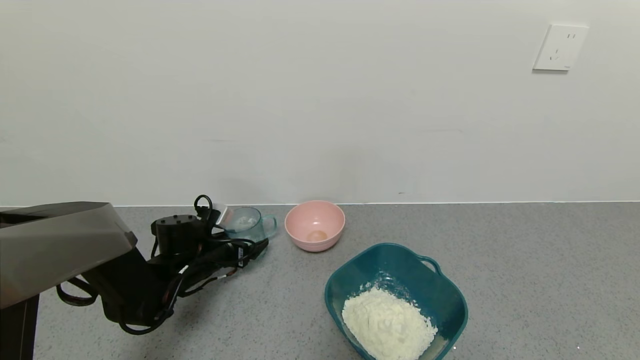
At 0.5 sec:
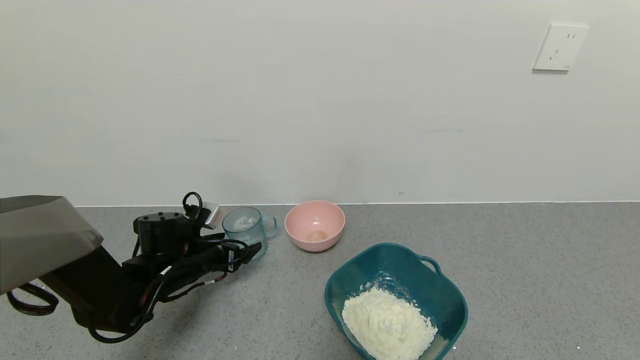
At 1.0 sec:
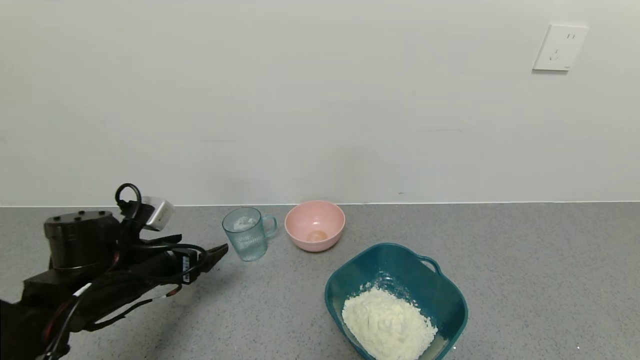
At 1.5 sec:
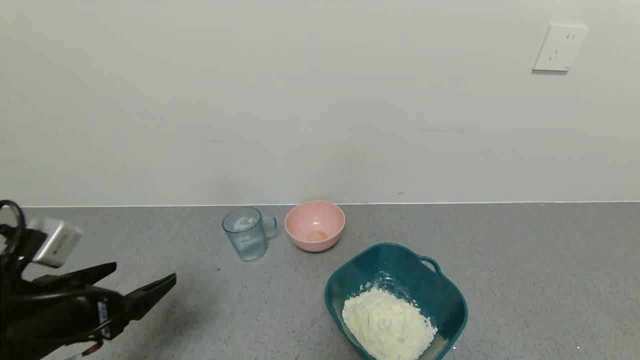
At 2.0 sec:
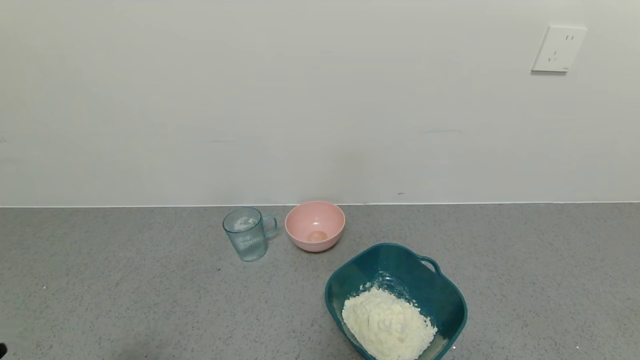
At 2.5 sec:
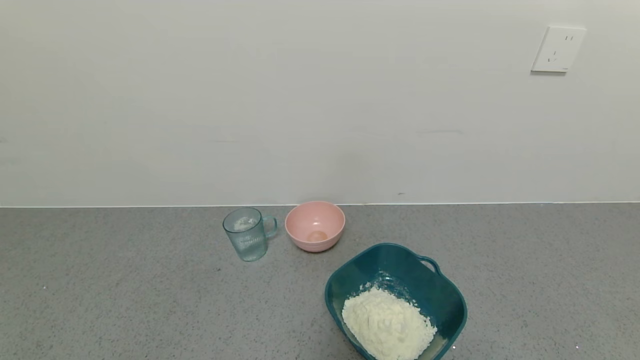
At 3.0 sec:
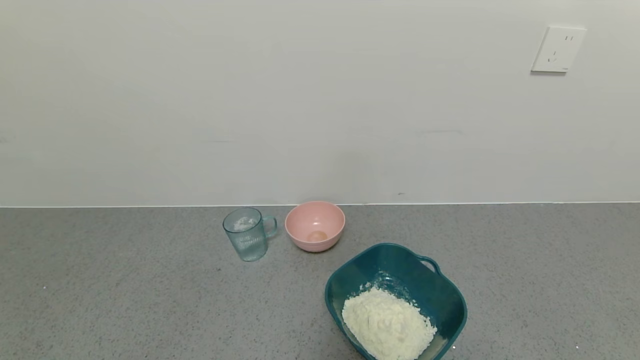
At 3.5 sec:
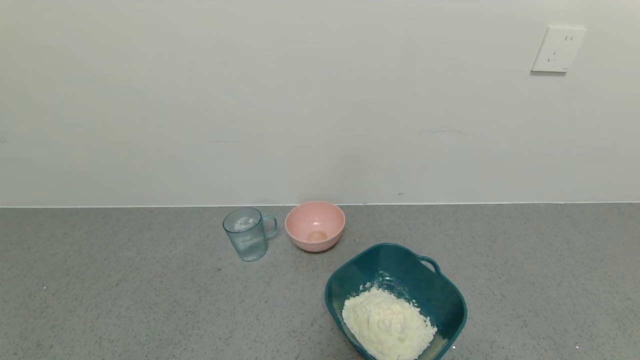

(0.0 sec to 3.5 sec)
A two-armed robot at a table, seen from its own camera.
Task of the whole recording: use a gripper to pick up the cup and pour the powder into a bowl or tray.
0.0 sec - 2.0 sec: The left gripper moves backward, some 35 cm.

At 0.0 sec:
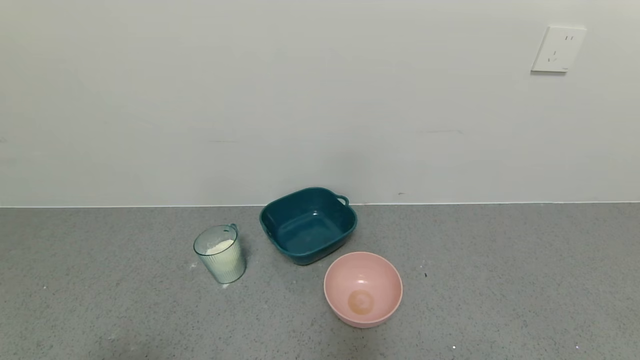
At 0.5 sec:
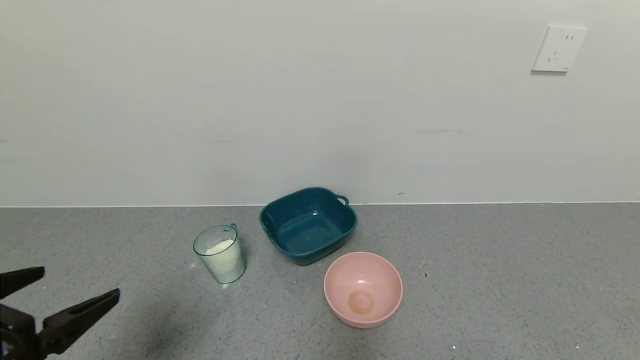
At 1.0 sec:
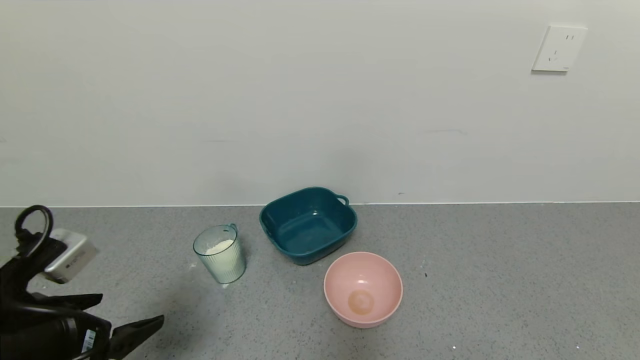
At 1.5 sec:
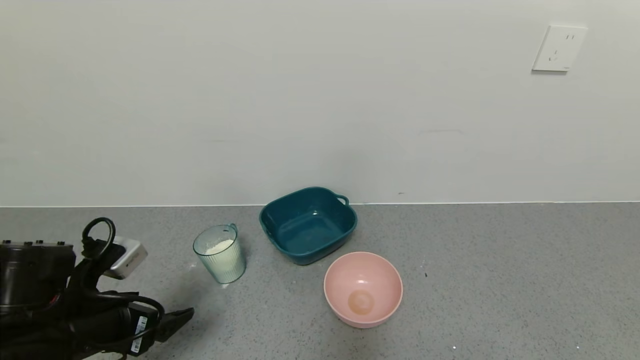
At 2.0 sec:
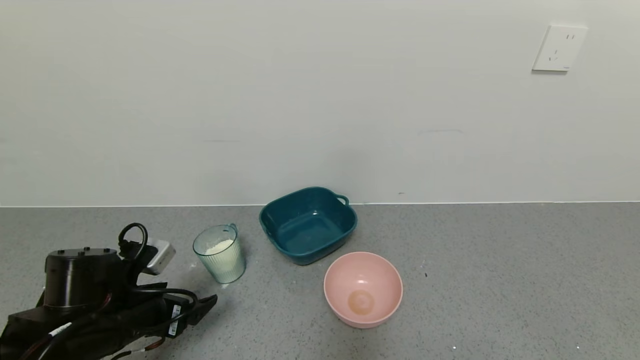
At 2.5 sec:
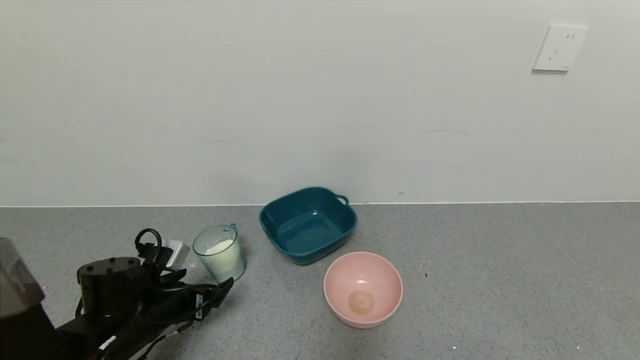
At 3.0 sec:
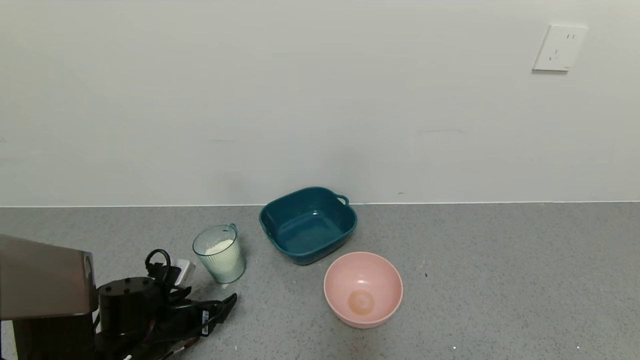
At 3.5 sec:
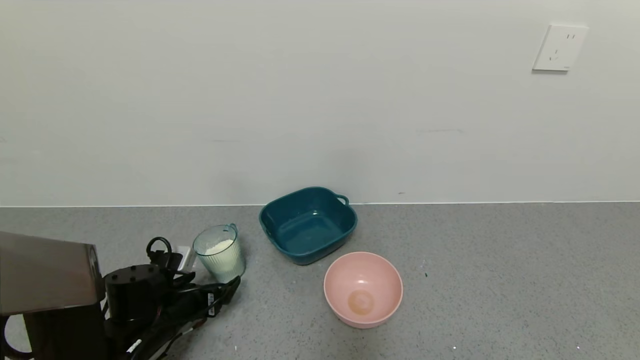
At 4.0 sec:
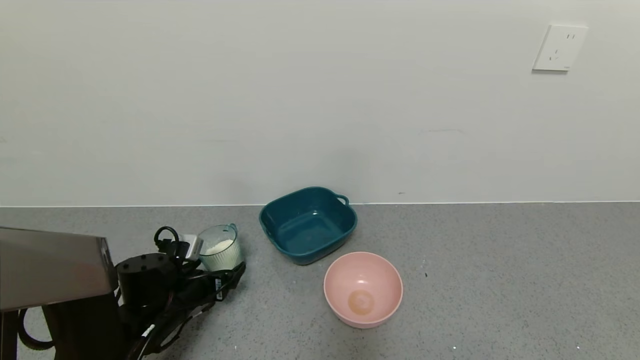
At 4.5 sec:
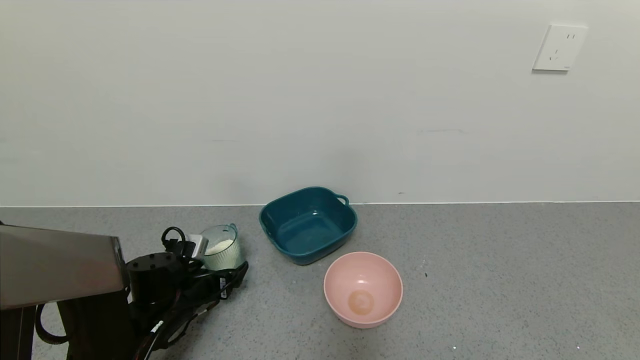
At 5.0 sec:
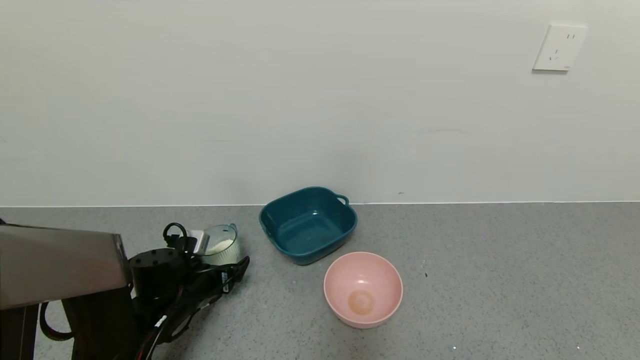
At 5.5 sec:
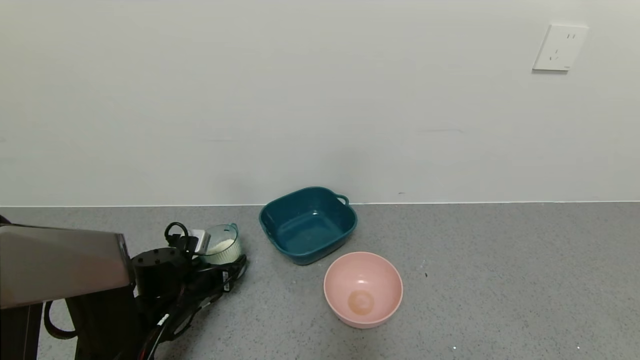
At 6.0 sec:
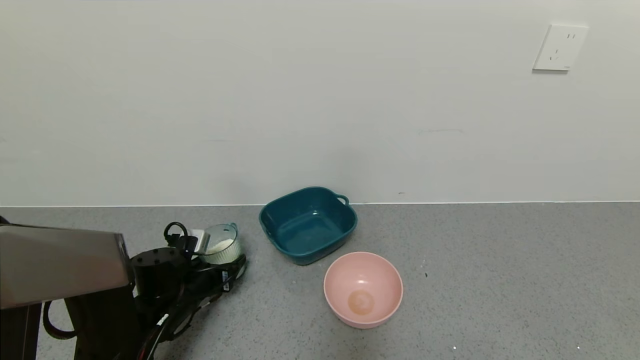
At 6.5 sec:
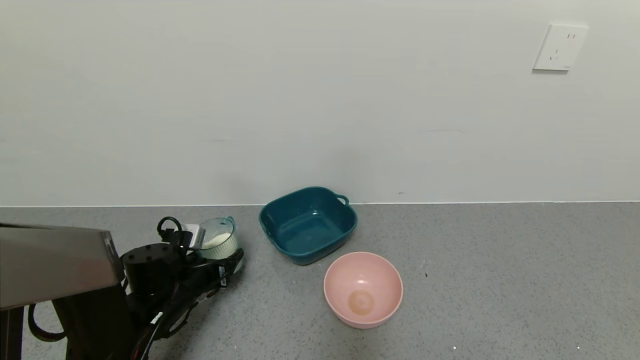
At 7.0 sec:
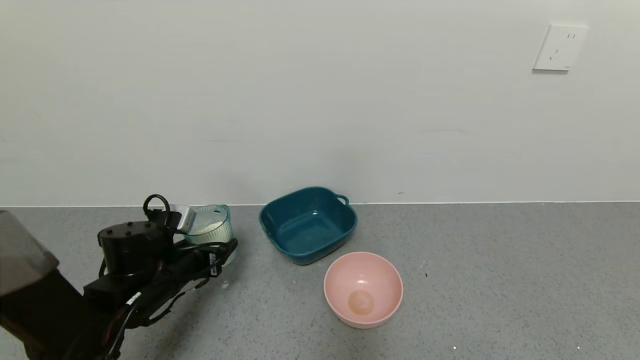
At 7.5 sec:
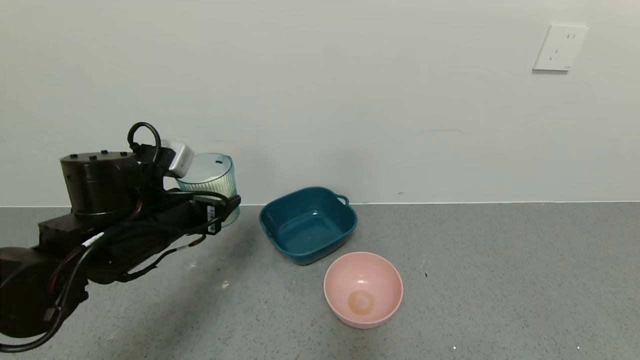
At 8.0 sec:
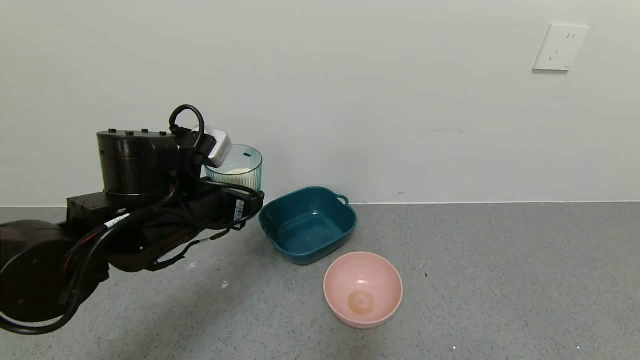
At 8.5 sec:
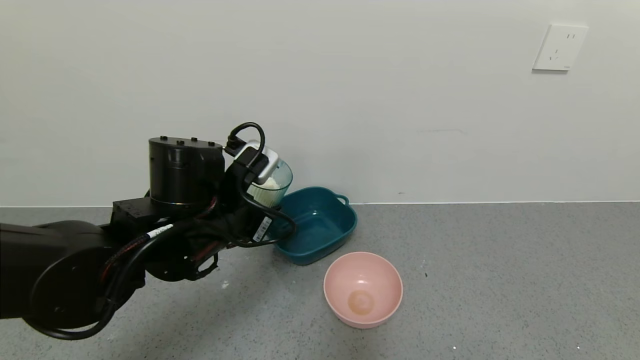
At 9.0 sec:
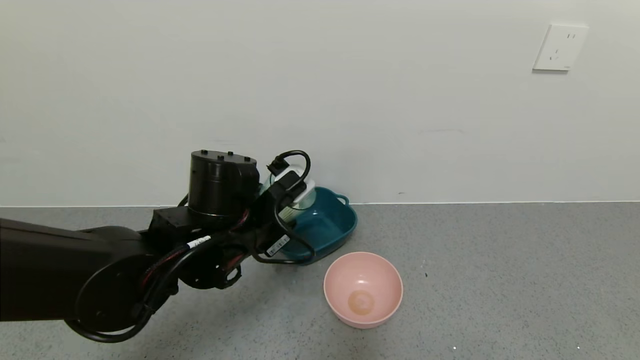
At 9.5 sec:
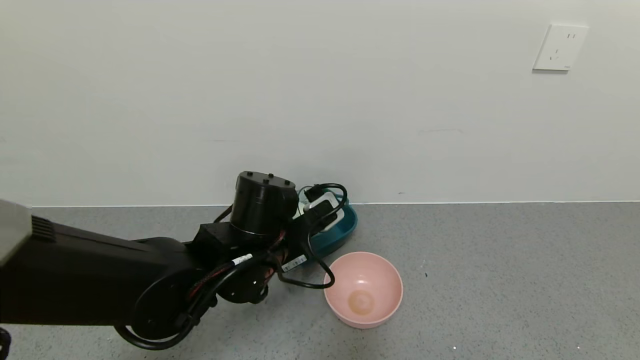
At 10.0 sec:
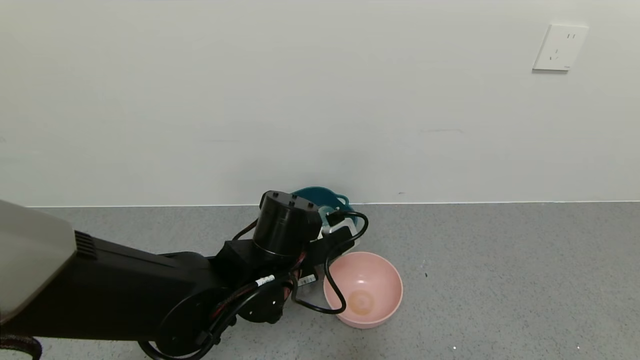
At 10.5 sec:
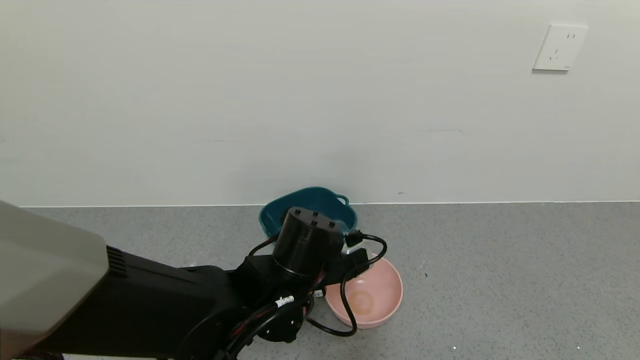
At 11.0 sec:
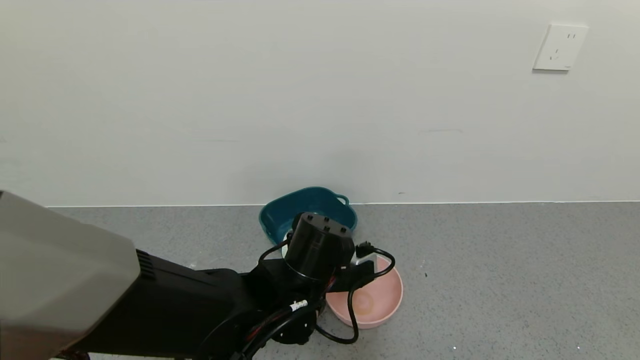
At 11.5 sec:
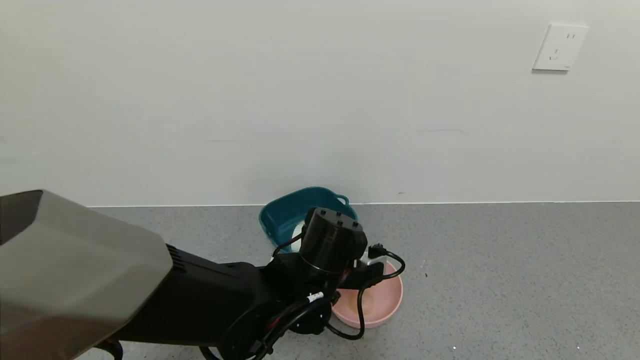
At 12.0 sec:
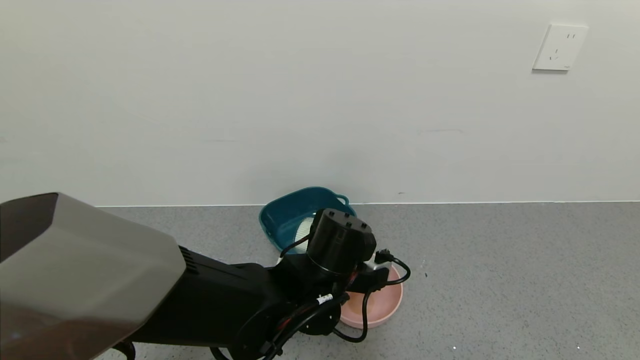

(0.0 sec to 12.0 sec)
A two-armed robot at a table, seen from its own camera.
Task of the whole recording: use a gripper to pick up the cup and pour the powder into a bowl or tray.
Step, 0.0 sec - 5.5 sec: Grasp the glass of powder with the left gripper.
0.0 sec - 2.0 sec: The left gripper shifts some 25 cm forward and downward.
2.0 sec - 4.0 sec: The left gripper heads forward and downward, covering some 10 cm.
4.0 sec - 6.0 sec: The left gripper closes its fingers.
6.0 sec - 8.0 sec: The left gripper goes about 20 cm upward.
8.0 sec - 10.0 sec: The left gripper is displaced to the right and downward by about 15 cm.
10.0 sec - 12.0 sec: The left gripper shifts some 5 cm to the right.

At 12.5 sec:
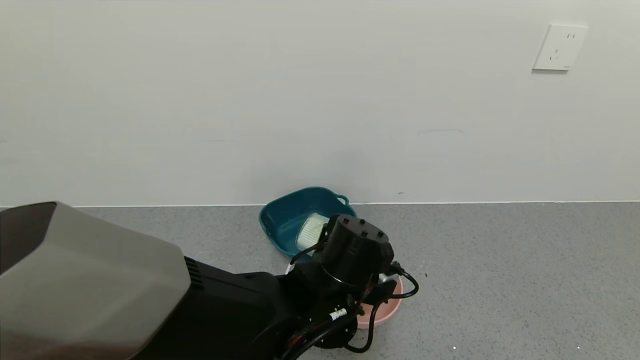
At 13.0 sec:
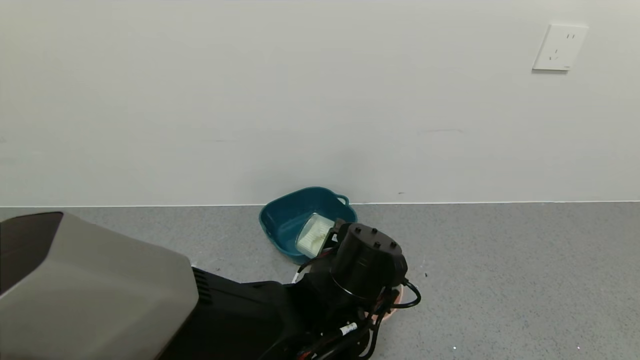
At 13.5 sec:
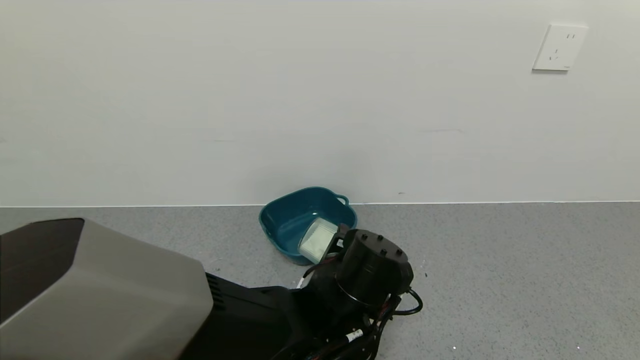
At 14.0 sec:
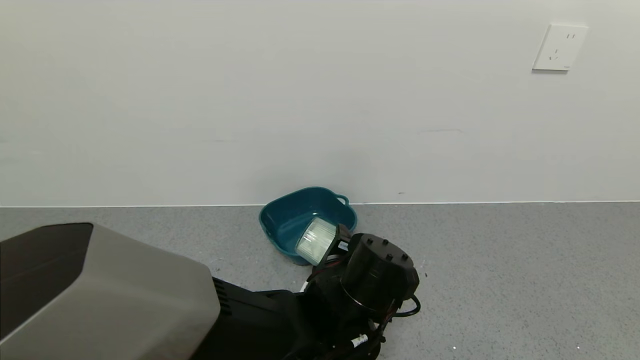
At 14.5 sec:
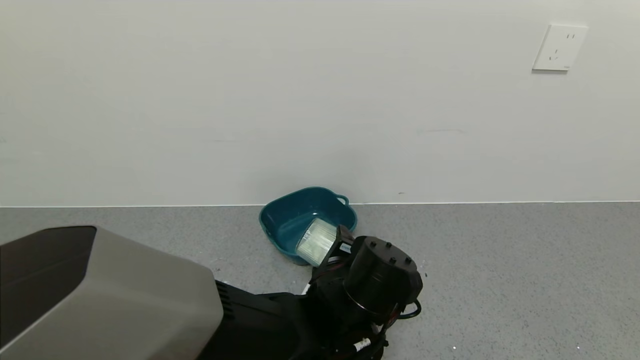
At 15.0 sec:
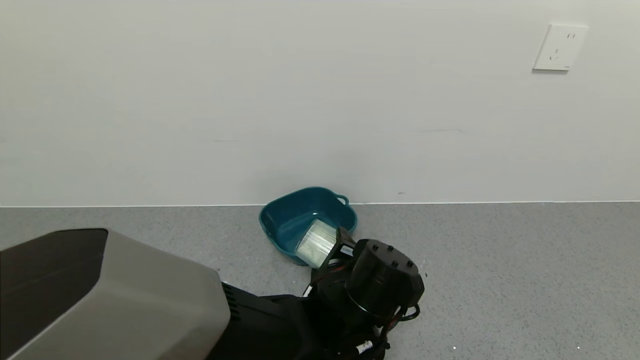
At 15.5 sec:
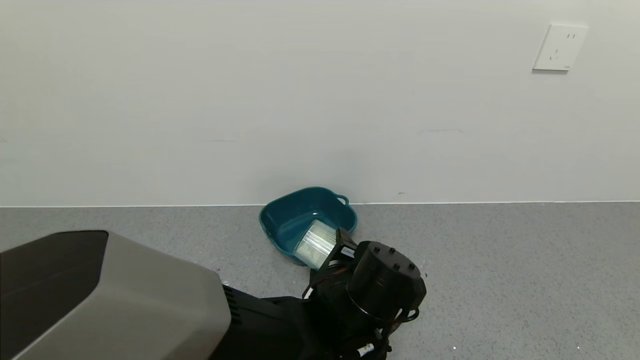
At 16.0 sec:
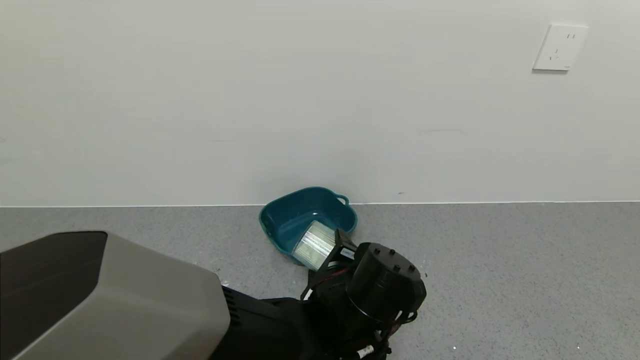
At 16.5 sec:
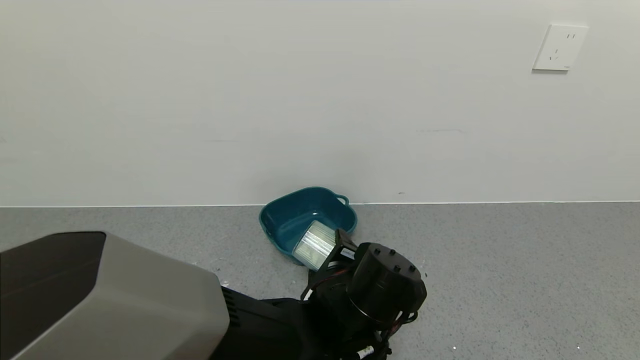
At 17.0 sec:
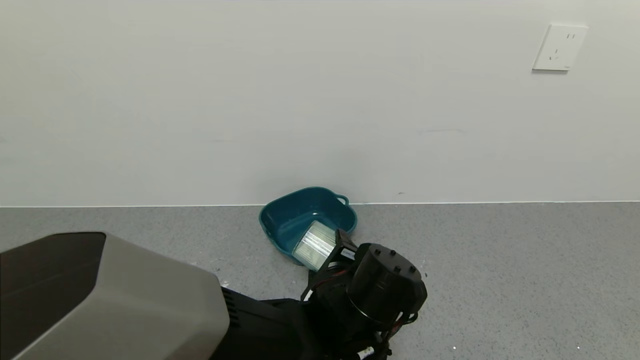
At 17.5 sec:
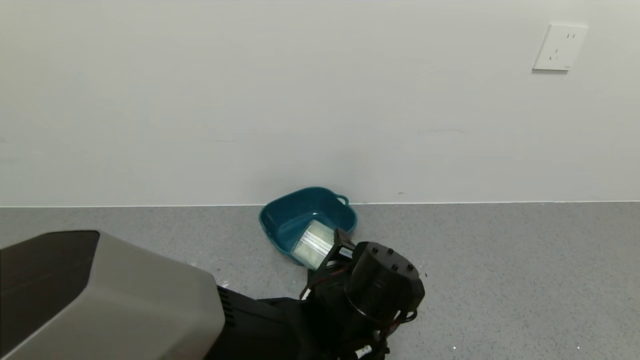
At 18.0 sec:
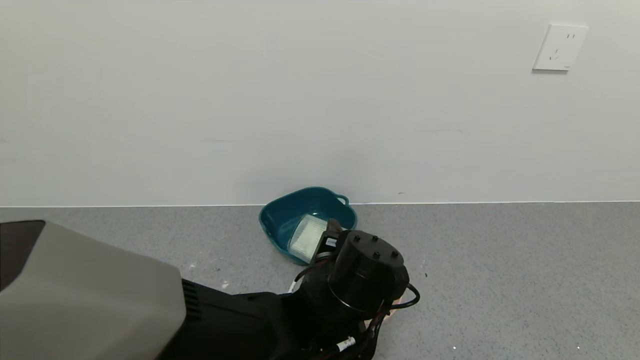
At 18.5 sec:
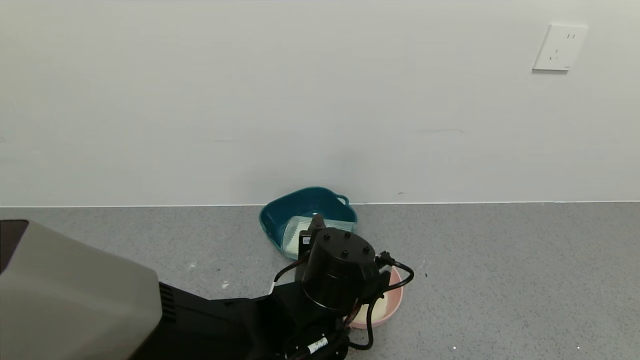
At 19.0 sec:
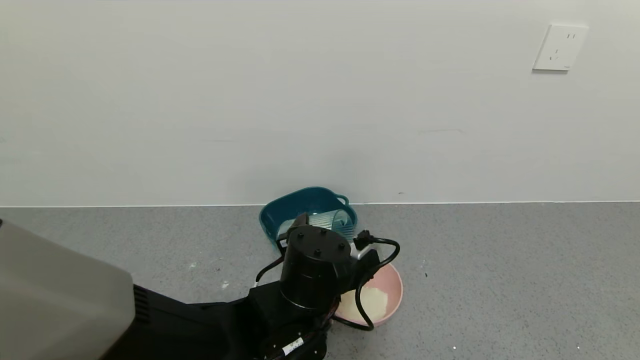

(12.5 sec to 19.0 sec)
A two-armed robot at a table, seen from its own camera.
Task of the whole recording: use a gripper to pick up the cup and pour the powder into a bowl or tray.
Step, 12.5 sec - 15.5 sec: Pour the powder into the pink bowl with the left gripper.
12.5 sec - 14.5 sec: The grippers make only small movements.
14.5 sec - 17.0 sec: Both grippers stay put.
17.0 sec - 19.0 sec: The left gripper moves roughly 5 cm.
